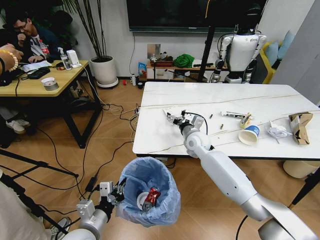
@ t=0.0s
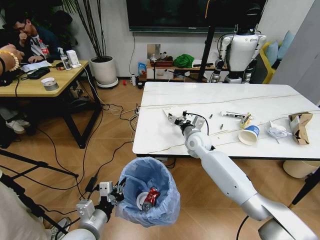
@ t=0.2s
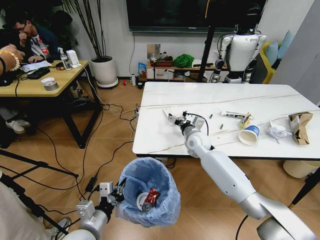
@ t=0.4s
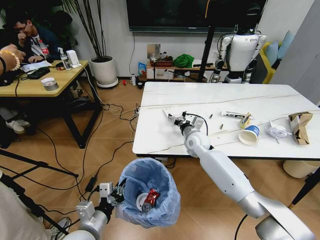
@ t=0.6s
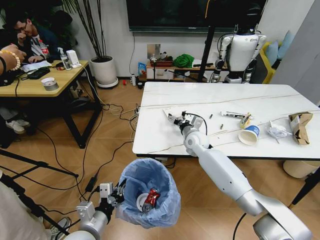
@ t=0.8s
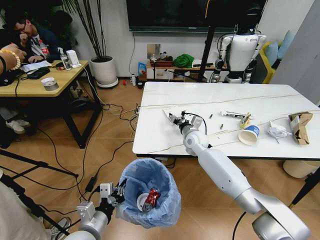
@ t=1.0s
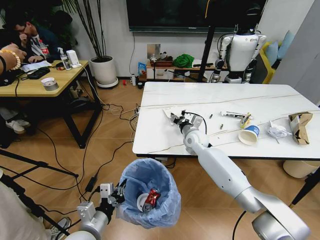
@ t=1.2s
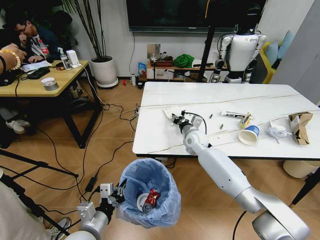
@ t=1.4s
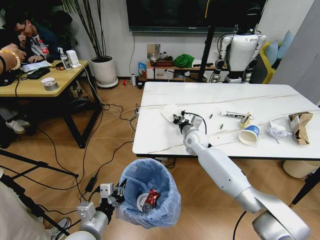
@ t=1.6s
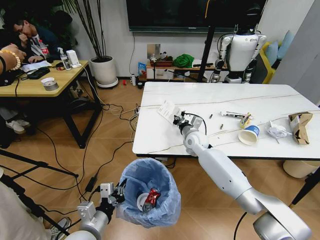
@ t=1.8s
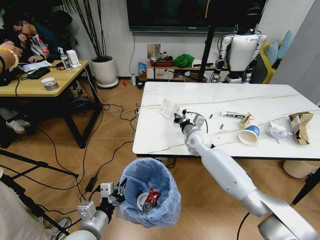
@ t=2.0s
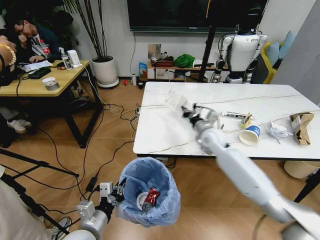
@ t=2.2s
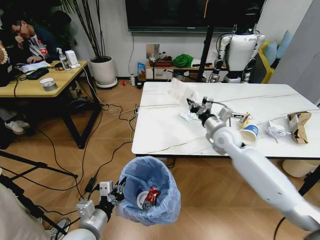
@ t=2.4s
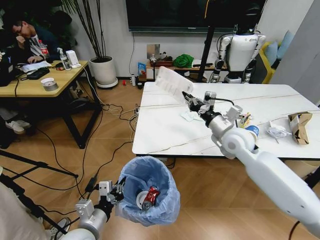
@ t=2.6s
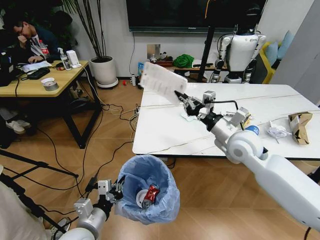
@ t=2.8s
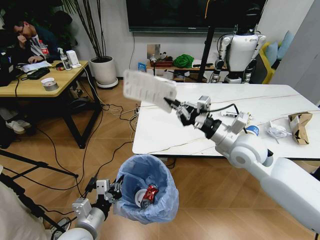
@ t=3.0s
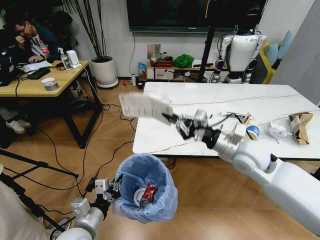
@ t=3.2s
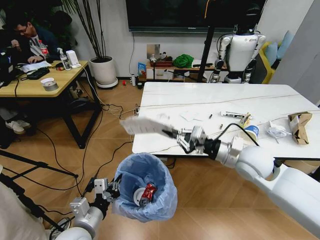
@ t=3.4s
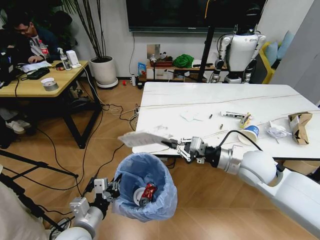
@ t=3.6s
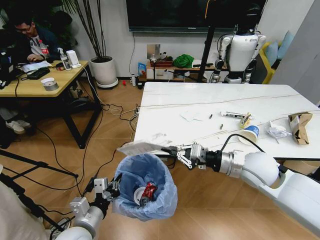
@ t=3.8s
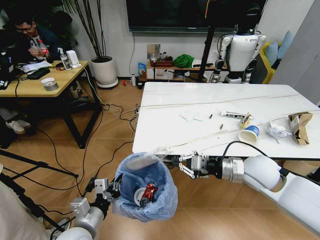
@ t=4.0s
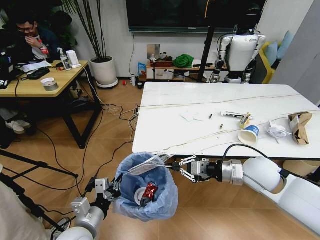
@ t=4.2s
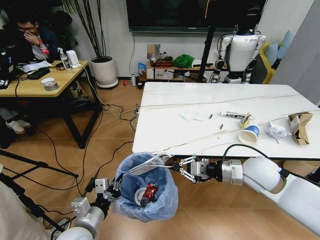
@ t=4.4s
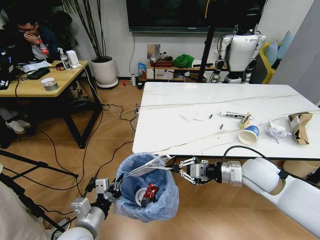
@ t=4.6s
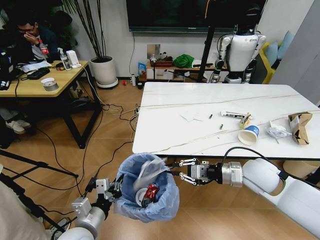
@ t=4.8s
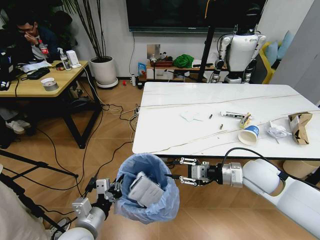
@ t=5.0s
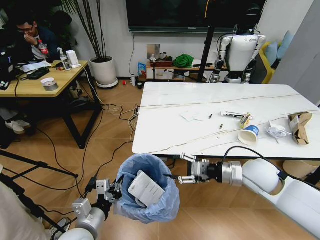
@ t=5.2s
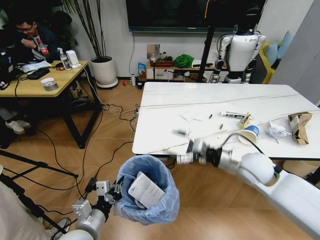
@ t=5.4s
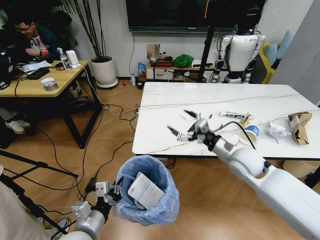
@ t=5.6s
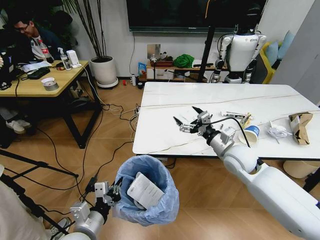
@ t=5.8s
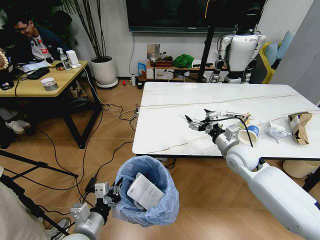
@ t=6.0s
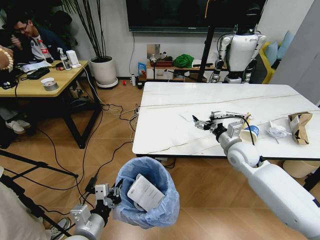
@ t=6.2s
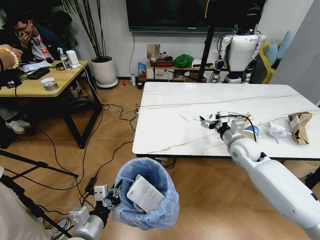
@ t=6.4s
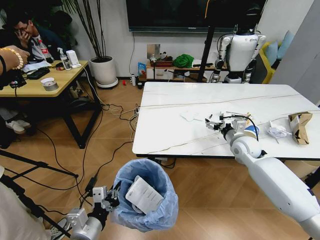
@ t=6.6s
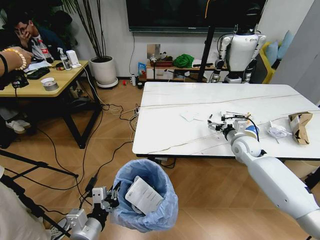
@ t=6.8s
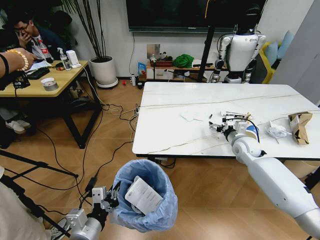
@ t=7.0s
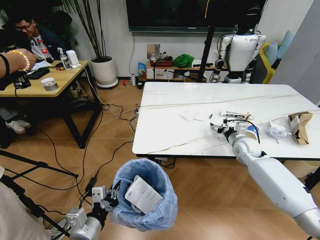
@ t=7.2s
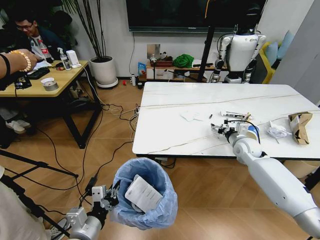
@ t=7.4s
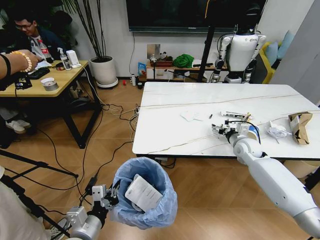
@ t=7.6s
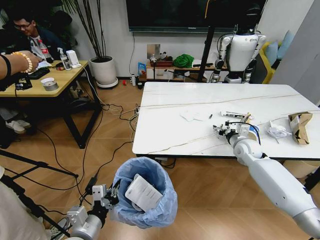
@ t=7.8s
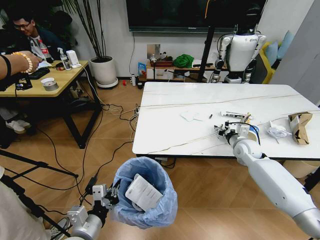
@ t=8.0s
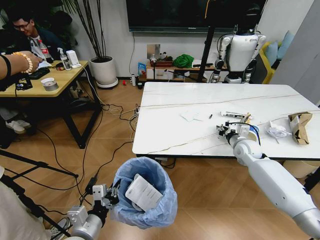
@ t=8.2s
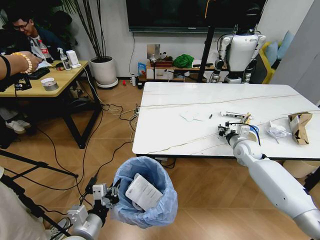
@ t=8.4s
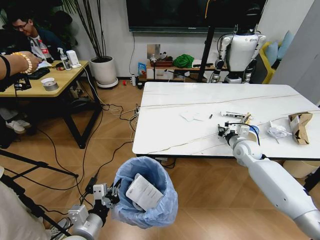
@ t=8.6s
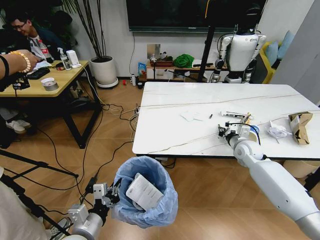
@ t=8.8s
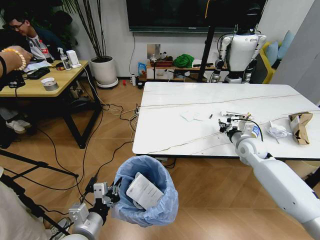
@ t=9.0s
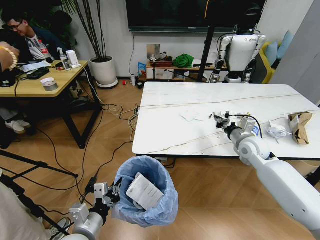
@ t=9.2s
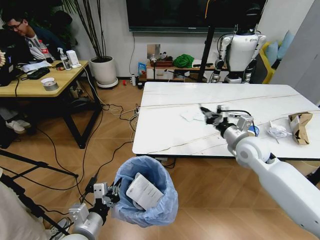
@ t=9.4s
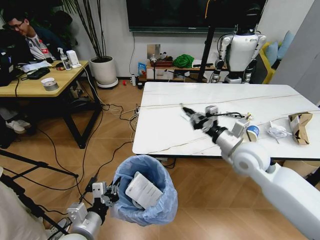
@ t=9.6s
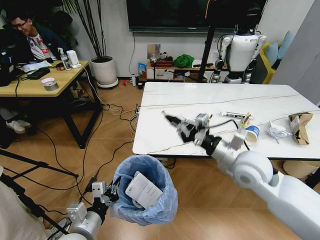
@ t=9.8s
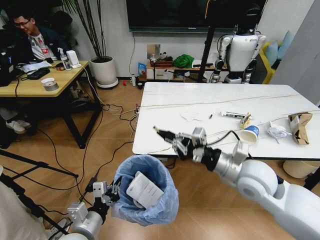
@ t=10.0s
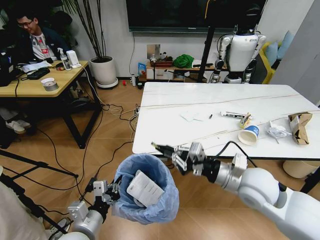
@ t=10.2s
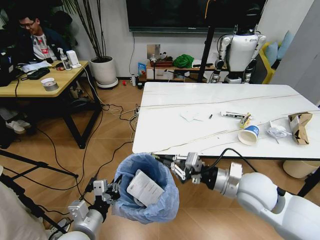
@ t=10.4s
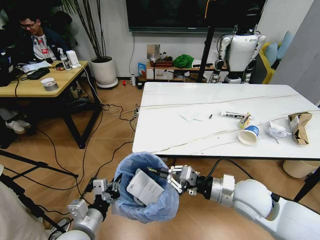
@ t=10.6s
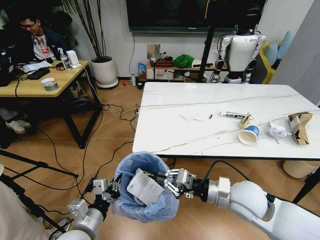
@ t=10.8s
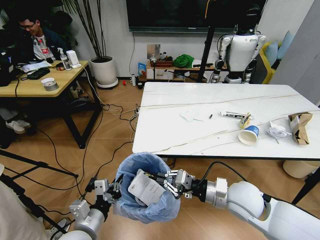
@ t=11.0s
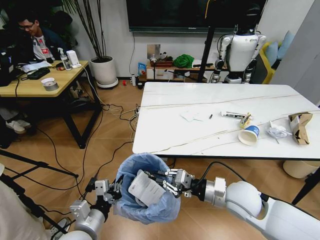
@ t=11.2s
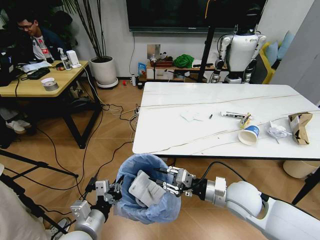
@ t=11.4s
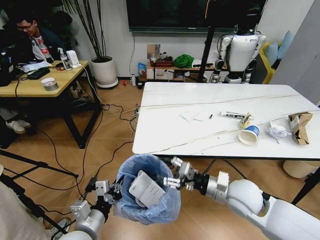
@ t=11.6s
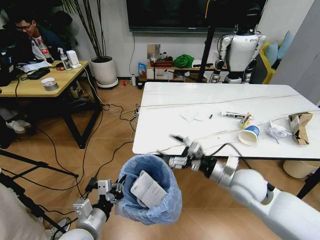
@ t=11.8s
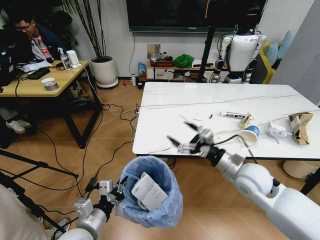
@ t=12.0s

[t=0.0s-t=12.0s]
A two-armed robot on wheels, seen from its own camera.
Task of the whole recording: Pick up the trash bin and place the trash from the table into it.
t=0.0s to t=1.6s: The right gripper closes up.
t=1.6s to t=3.0s: The right gripper moves backward, upward and to the right, roughly 25 cm.
t=3.0s to t=4.4s: The right gripper moves downward, some 5 cm.
t=4.4s to t=6.0s: The right gripper moves forward, roughly 10 cm, and opens.
t=6.0s to t=7.6s: The right gripper heads to the right, forward and downward, covering approximately 10 cm.
t=7.6s to t=9.0s: The right gripper closes up.
t=9.0s to t=10.4s: The right gripper shifts roughly 20 cm backward and to the left.
t=10.4s to t=12.0s: The right gripper changes place by roughly 5 cm, and opens.

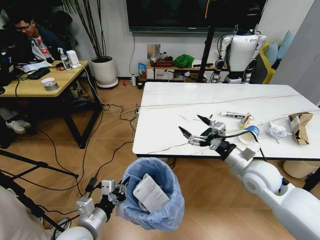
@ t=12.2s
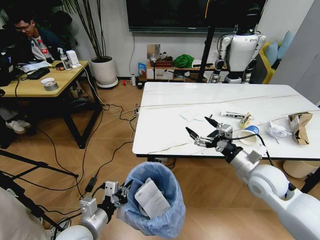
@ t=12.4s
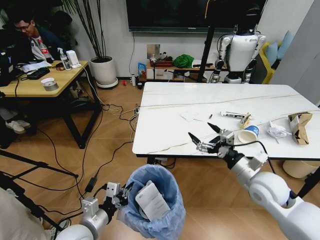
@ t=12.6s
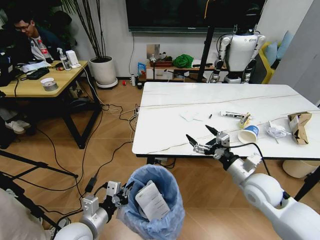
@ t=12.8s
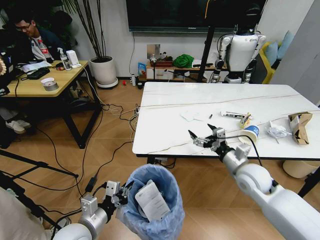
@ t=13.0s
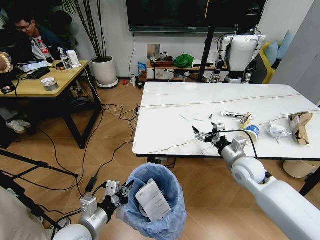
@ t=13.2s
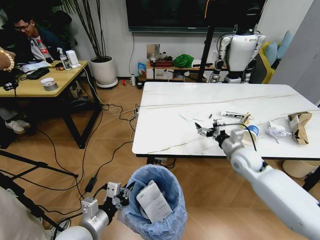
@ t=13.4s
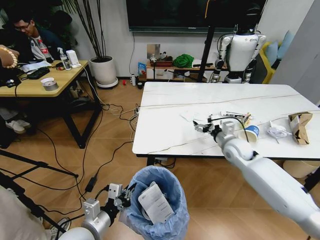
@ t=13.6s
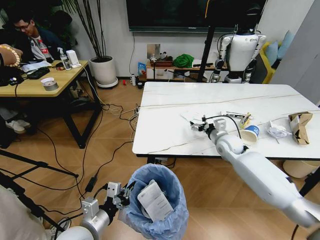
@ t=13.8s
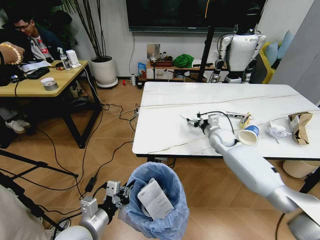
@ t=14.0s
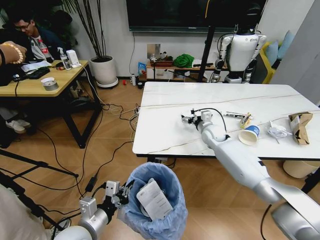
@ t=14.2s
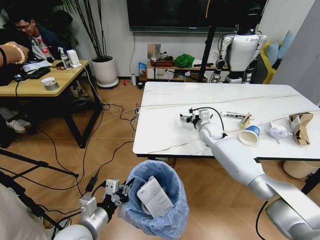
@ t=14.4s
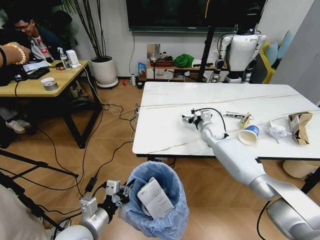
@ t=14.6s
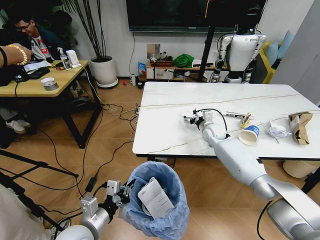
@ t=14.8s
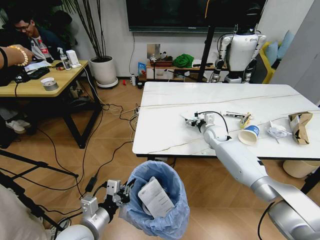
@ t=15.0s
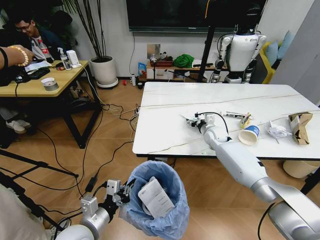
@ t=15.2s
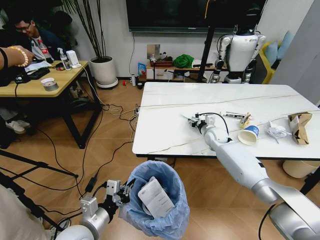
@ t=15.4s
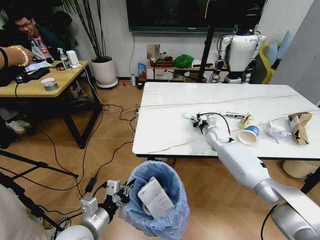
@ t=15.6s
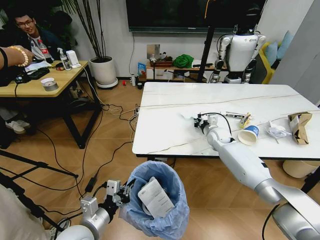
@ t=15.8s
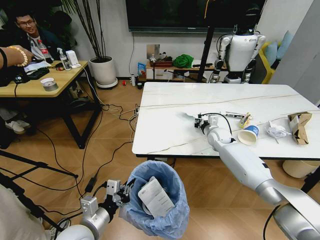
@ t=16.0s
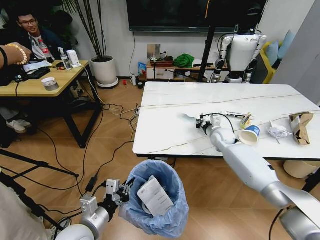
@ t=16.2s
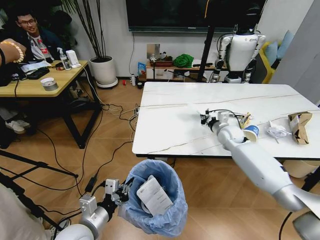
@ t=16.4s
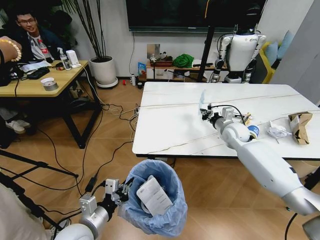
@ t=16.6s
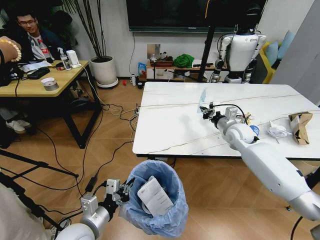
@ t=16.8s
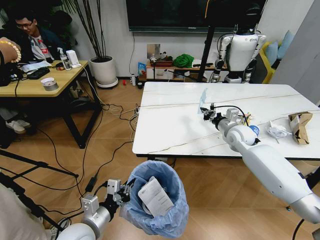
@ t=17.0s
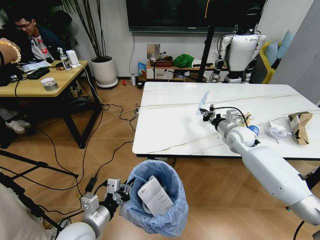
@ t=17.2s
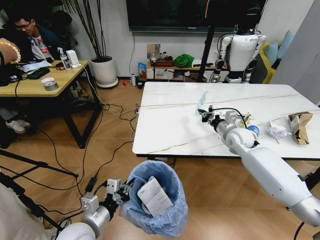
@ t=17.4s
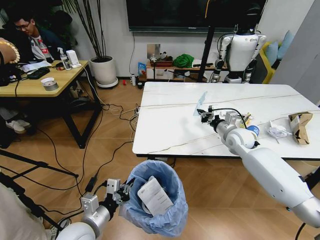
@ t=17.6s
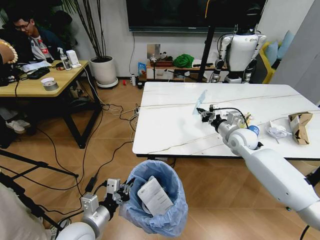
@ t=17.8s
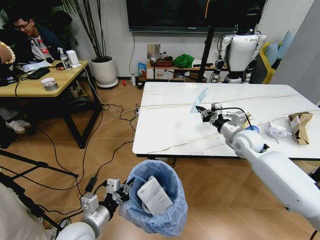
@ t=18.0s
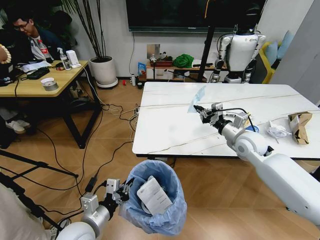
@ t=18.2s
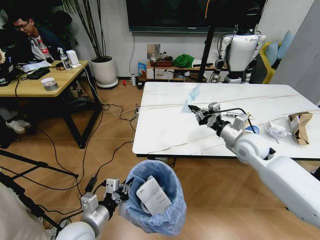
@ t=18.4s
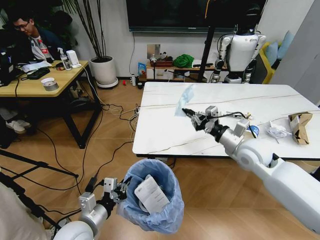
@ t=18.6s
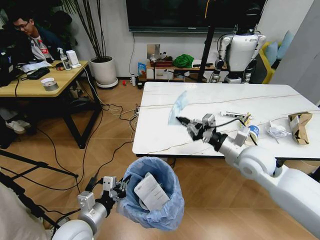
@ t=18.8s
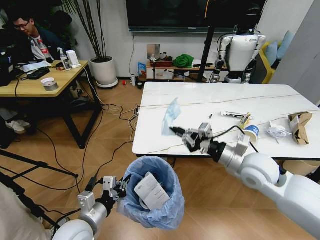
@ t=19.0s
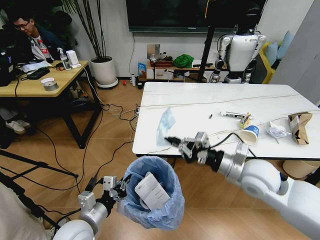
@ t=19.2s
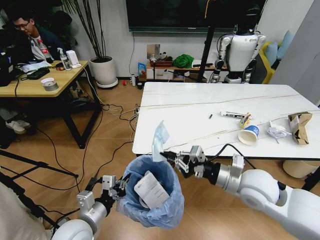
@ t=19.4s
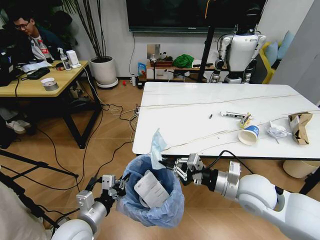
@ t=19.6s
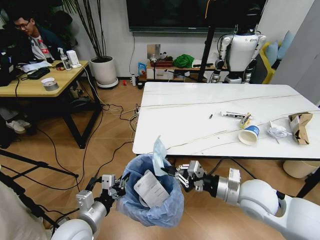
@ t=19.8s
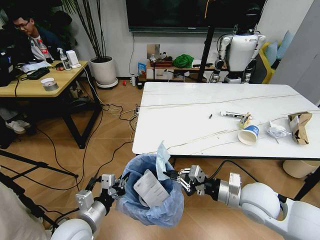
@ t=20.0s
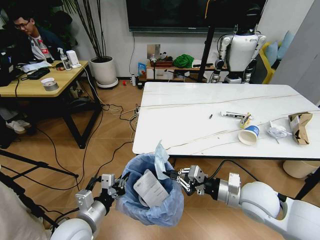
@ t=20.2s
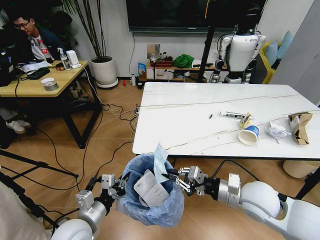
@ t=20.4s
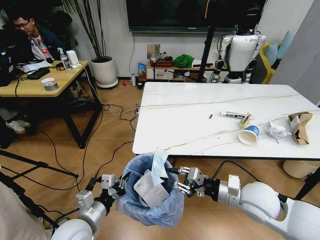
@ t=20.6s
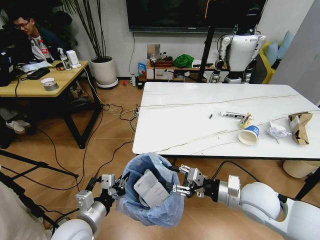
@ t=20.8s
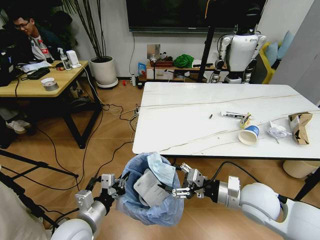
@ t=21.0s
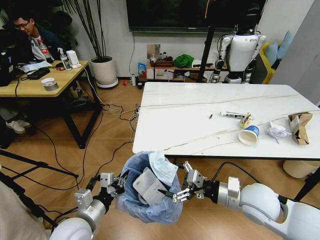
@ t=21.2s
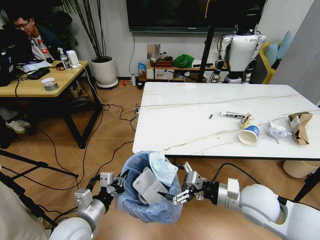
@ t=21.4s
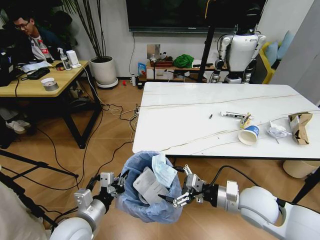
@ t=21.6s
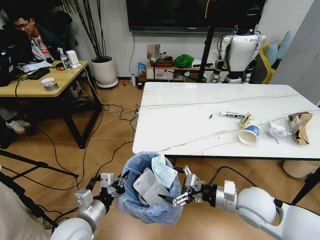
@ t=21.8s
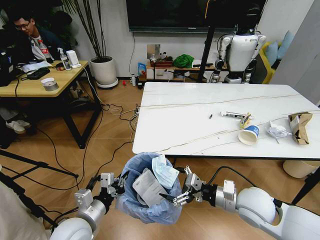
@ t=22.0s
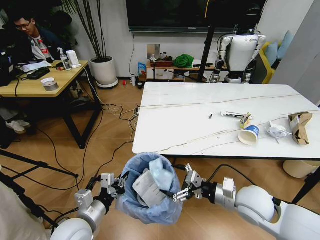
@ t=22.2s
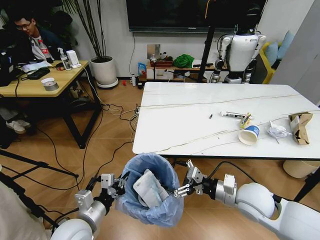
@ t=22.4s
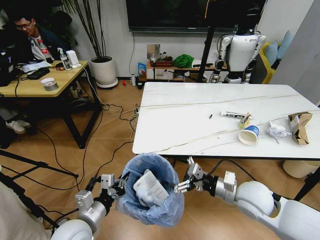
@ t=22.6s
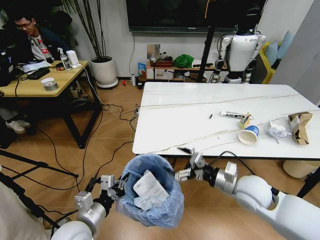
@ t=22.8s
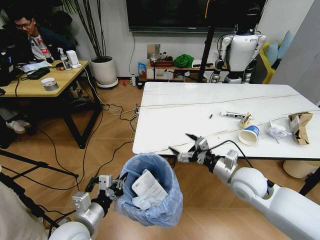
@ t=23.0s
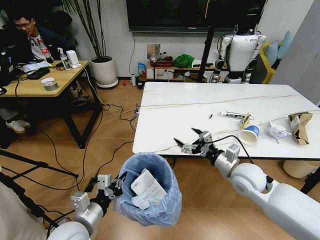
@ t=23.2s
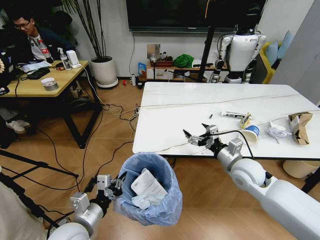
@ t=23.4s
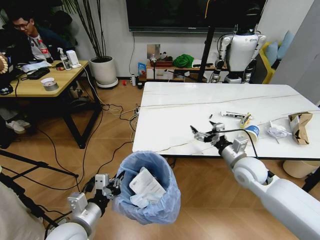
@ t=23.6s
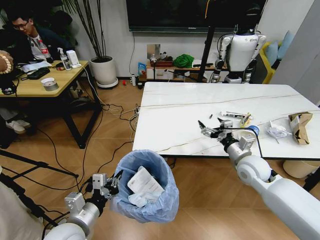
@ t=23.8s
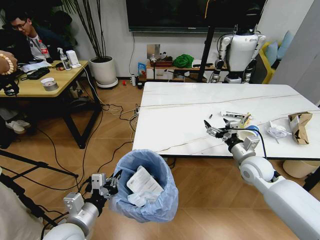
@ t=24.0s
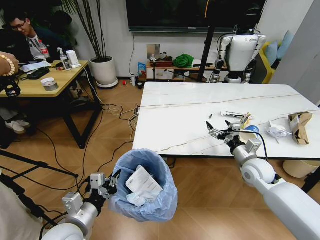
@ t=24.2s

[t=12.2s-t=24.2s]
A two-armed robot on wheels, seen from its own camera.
Task of the whole recording: Pick up the trash bin and place the trash from the table into it.
t=12.2s to t=13.8s: The right gripper travels forward by approximately 15 cm.
t=13.8s to t=15.2s: The right gripper shifts roughly 5 cm forward.
t=15.2s to t=16.6s: The right gripper goes roughly 10 cm upward and to the right, and closes its fingers.
t=16.6s to t=18.2s: The right gripper moves backward, about 10 cm.
t=18.2s to t=19.8s: The right gripper shifts roughly 20 cm backward.
t=19.8s to t=21.2s: The right gripper opens up.
t=21.2s to t=22.6s: The grippers move only a little.
t=22.6s to t=24.2s: The right gripper goes roughly 15 cm forward and to the right.
